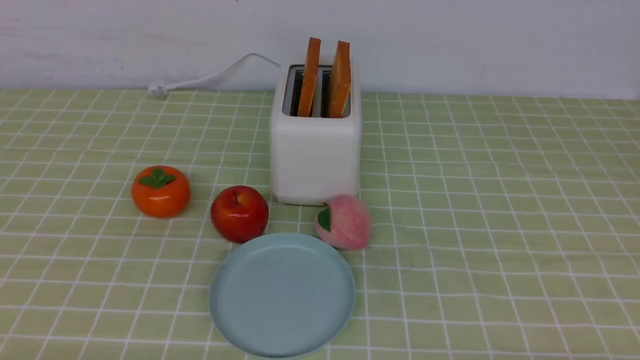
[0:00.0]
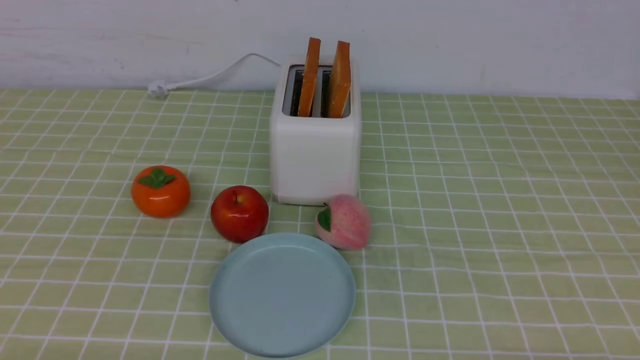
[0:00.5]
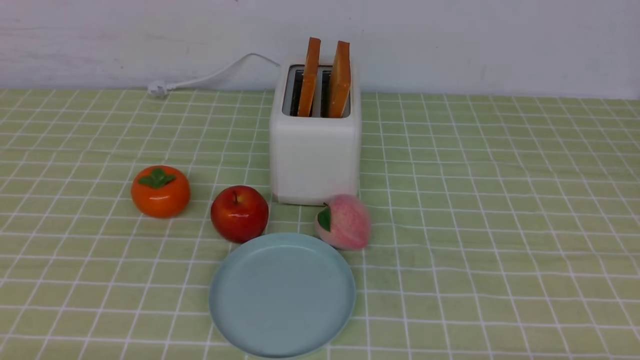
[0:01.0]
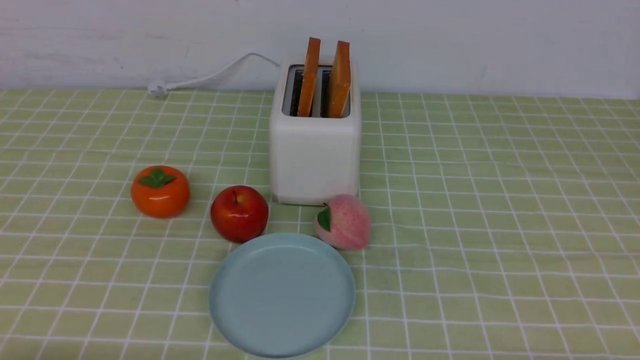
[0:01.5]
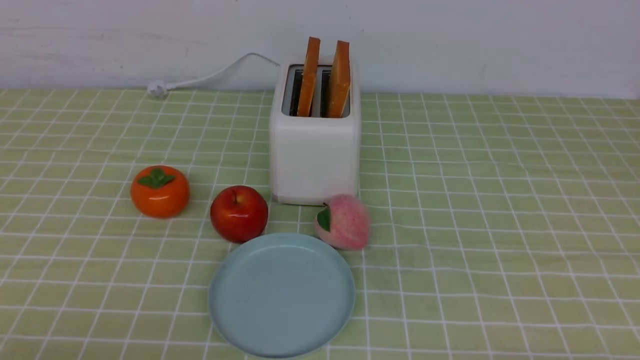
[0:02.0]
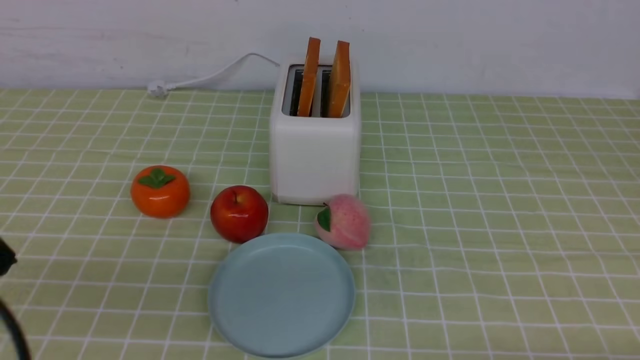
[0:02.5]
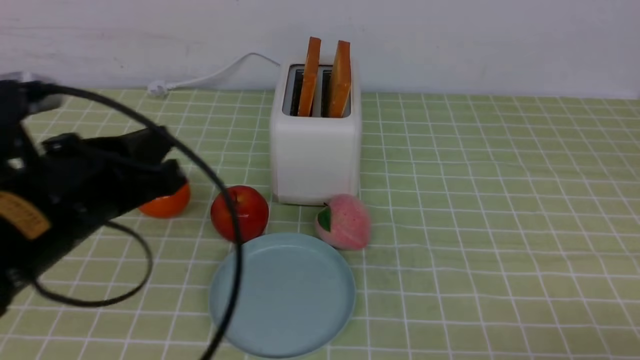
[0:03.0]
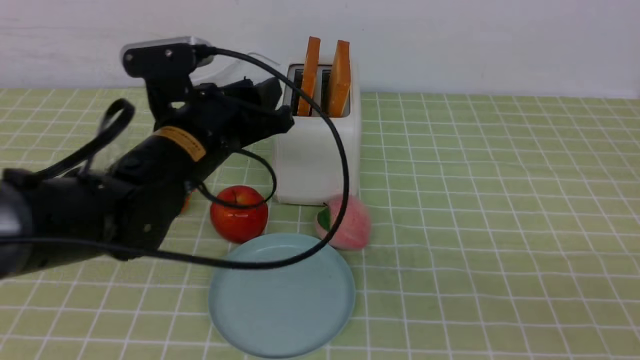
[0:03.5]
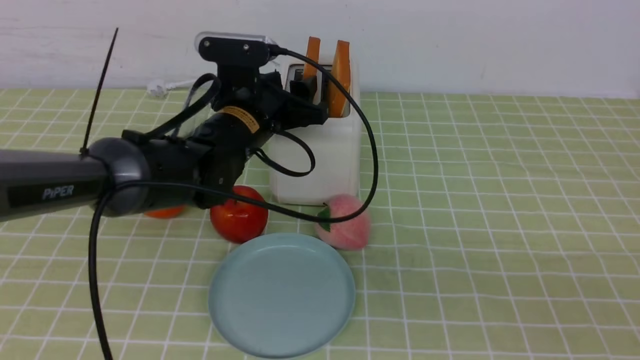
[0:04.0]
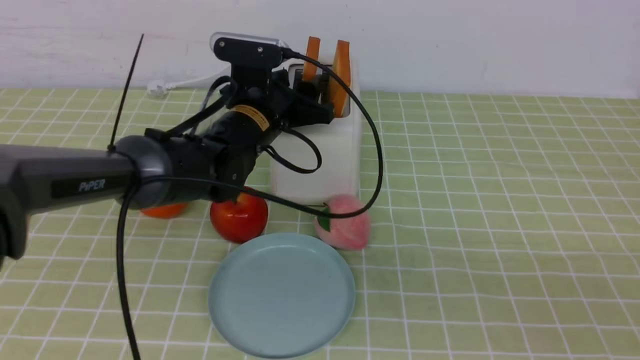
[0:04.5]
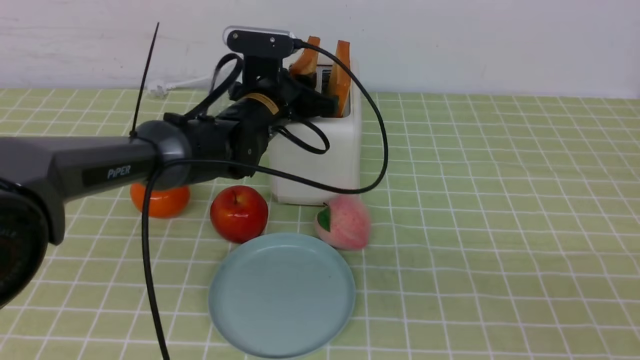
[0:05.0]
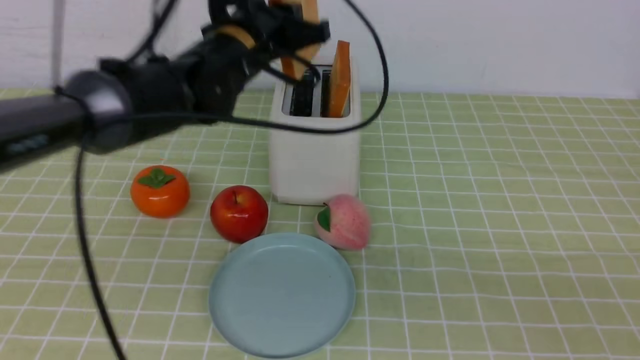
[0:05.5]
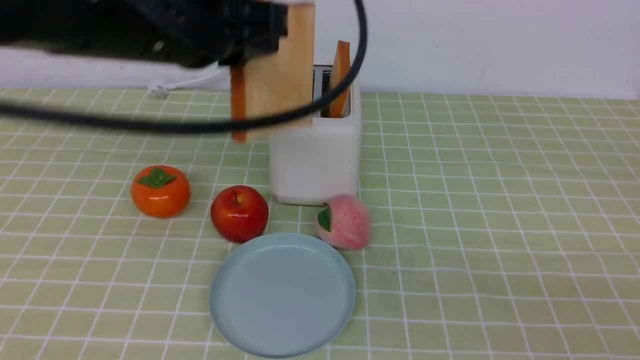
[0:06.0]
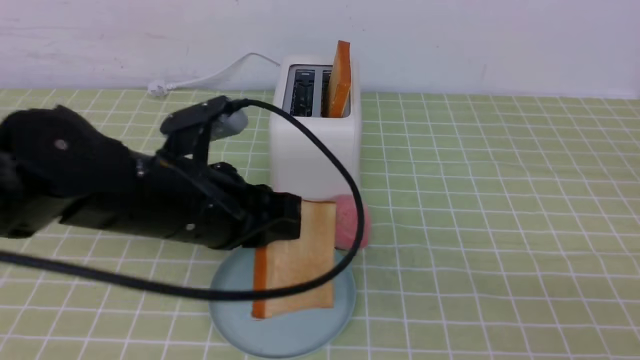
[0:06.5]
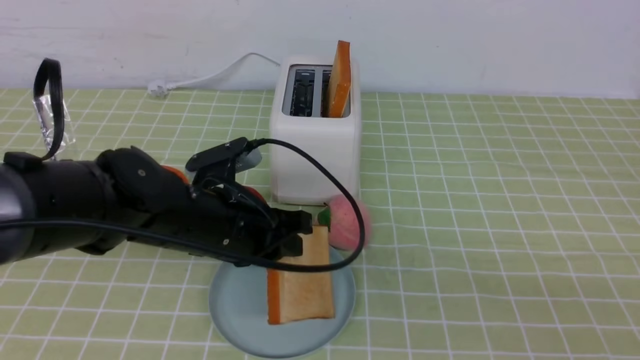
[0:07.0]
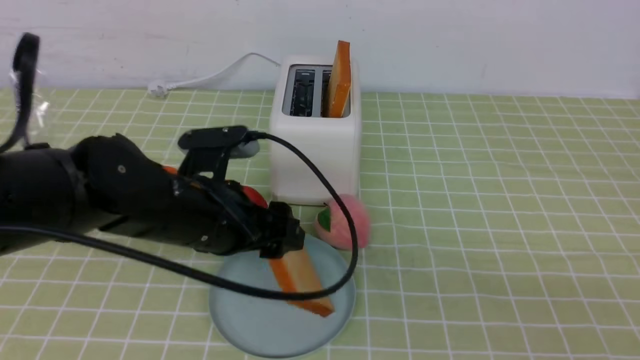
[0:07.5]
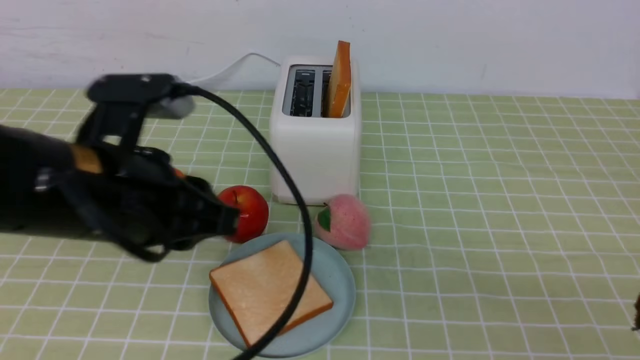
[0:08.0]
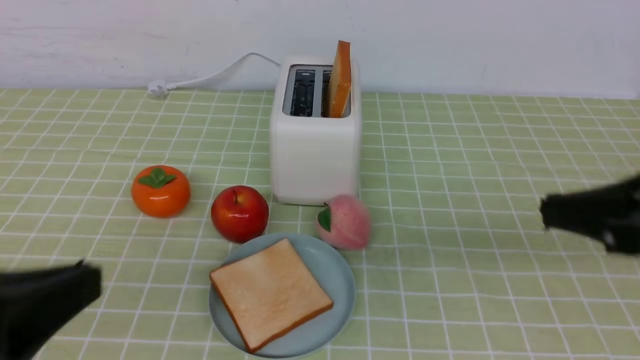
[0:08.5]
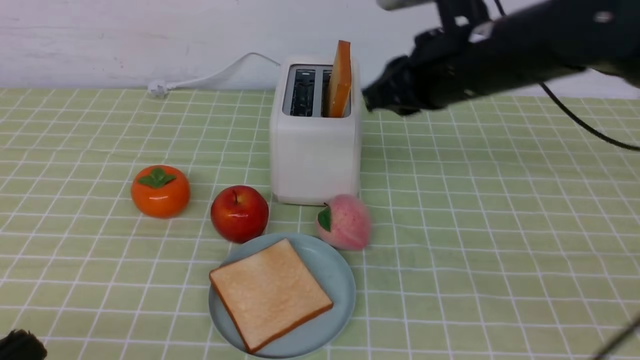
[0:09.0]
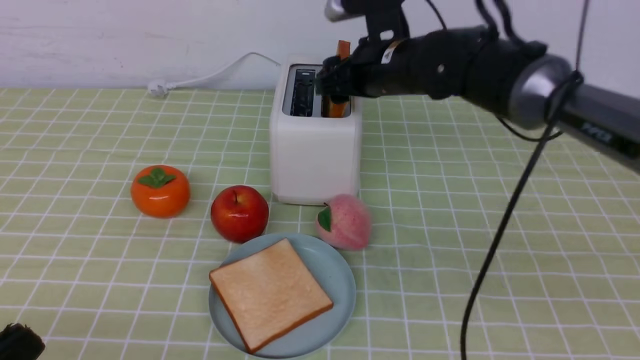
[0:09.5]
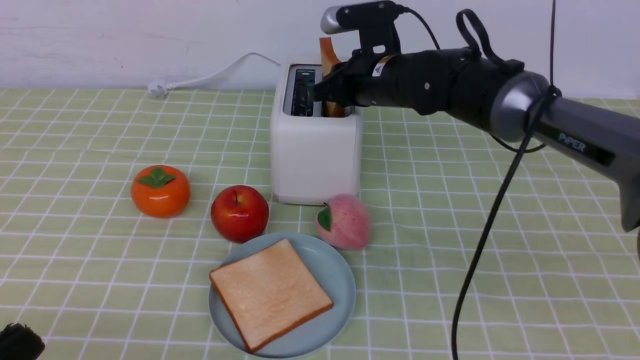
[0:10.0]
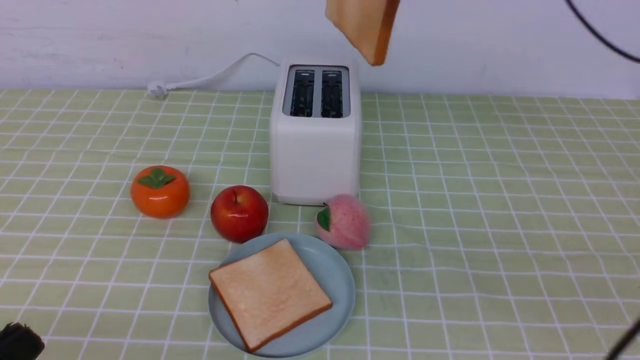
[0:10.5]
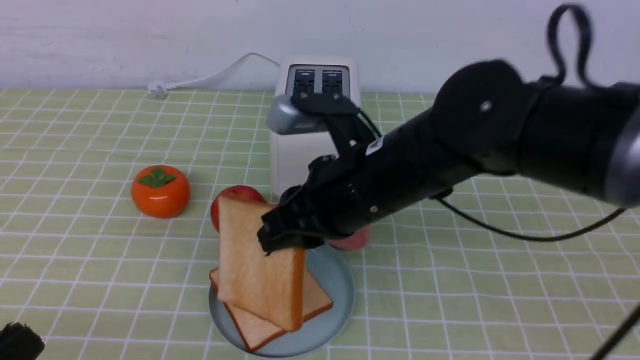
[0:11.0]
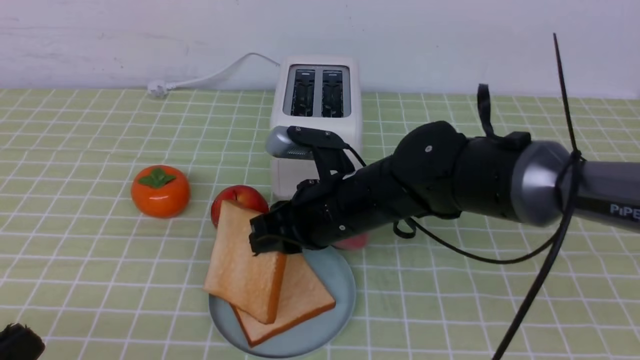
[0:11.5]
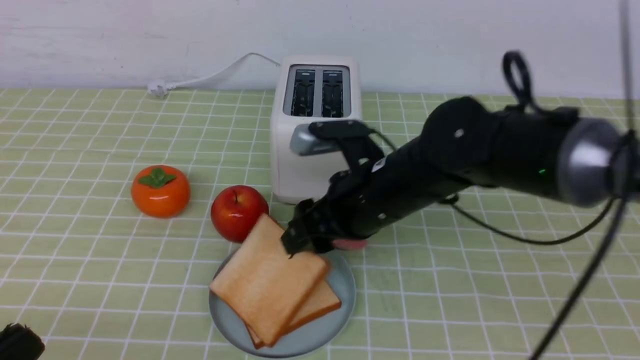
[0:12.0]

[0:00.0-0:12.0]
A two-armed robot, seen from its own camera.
Task of the whole recording: take toasted bread from bread machine on green coffee tablecloth place on plate.
Step, 0:00.0 to 0:05.5: use the left arm to take out a slice of bread.
Step, 0:06.0 to 0:08.0: use the left arm to put a slice of bread into the empty plate.
Step, 0:08.5 to 0:10.5: use the right arm to take out a slice of bread.
0:02.0 to 0:04.0: The left gripper heads forward and to the right, covering approximately 40 cm, and opens up. The right gripper goes approximately 15 cm upward, and closes up.
0:04.0 to 0:06.0: The left gripper heads upward and backward, covering some 20 cm, and closes.
0:06.0 to 0:08.0: The left gripper travels backward by roughly 5 cm, travels downward and back again, some 15 cm each way, and opens and closes again.
0:08.0 to 0:10.0: The left gripper shifts roughly 20 cm backward and to the left, and closes its fingers, while the right gripper moves forward and to the left, approximately 40 cm, and opens, then closes once more.
0:10.0 to 0:12.0: The right gripper goes up and down, roughly 20 cm each way, reversing 2 times, and opens its fingers.

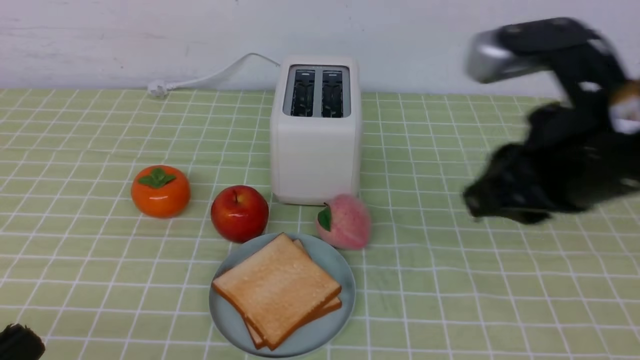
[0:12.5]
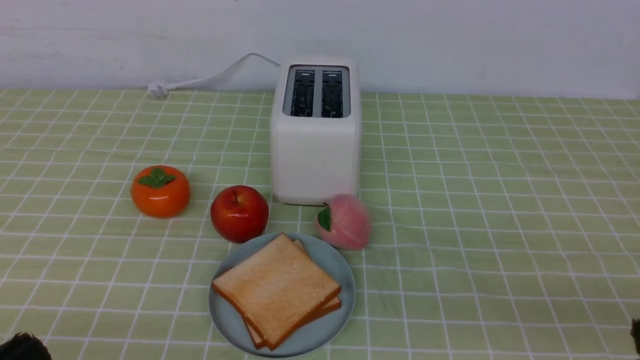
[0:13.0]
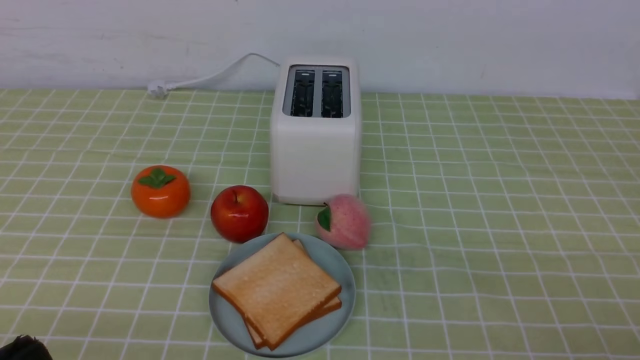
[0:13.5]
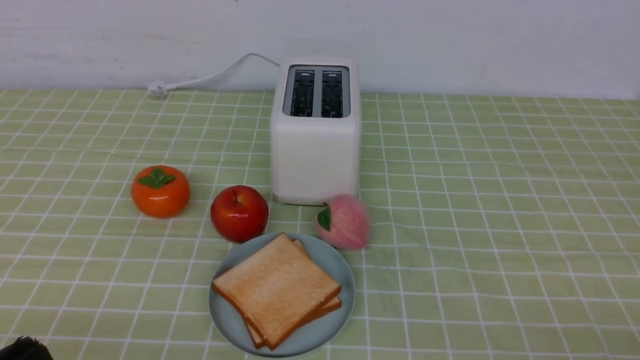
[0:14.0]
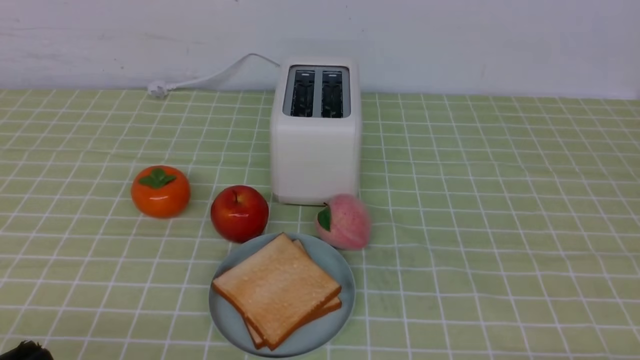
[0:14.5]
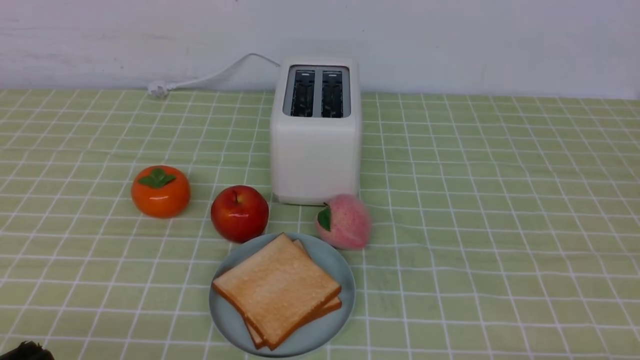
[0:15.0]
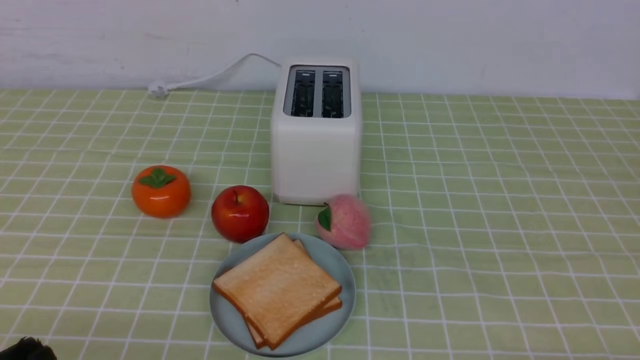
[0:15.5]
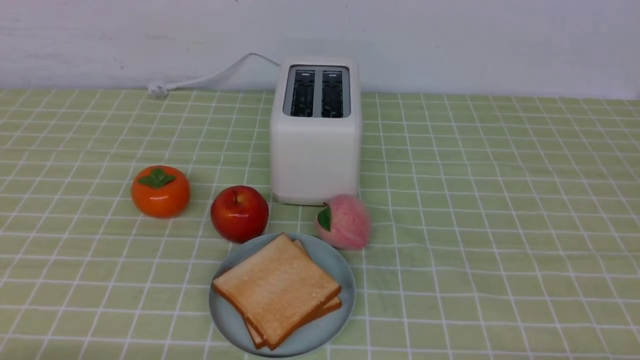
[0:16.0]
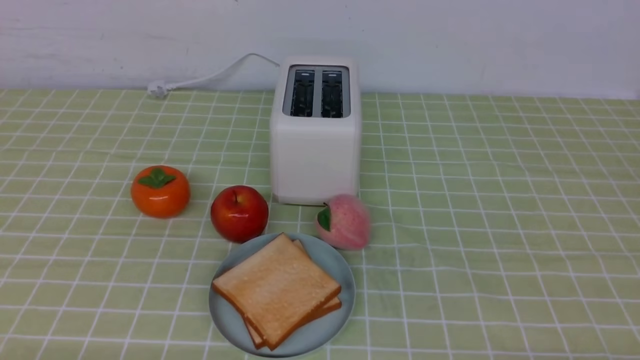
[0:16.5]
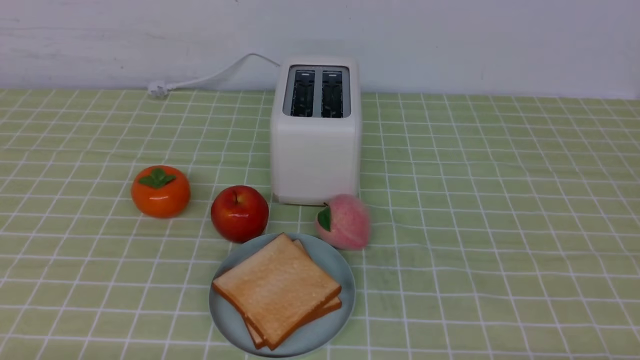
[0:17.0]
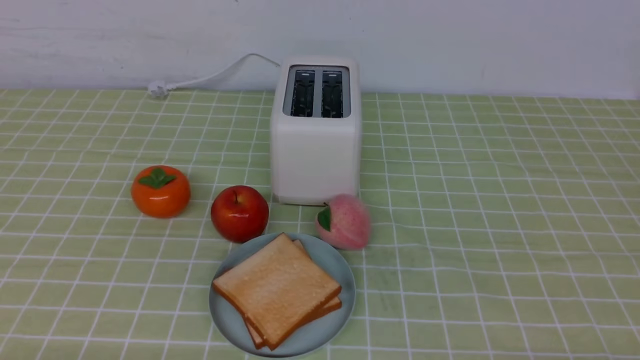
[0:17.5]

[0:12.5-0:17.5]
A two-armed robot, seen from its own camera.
Task of the whole recording: take toasted bread from bread machine on green coffee tablecloth place on plate.
0:12.5 to 0:15.0: The right gripper shifts some 30 cm downward, backward and to the right, and closes its fingers.

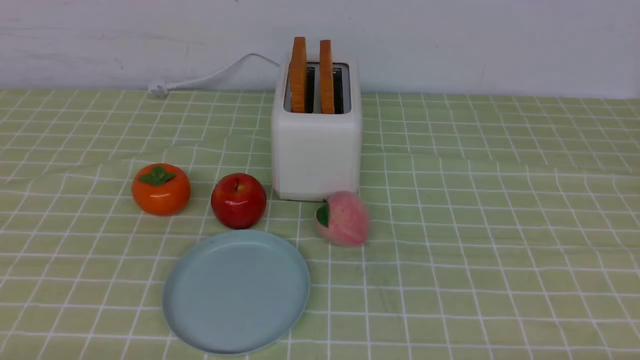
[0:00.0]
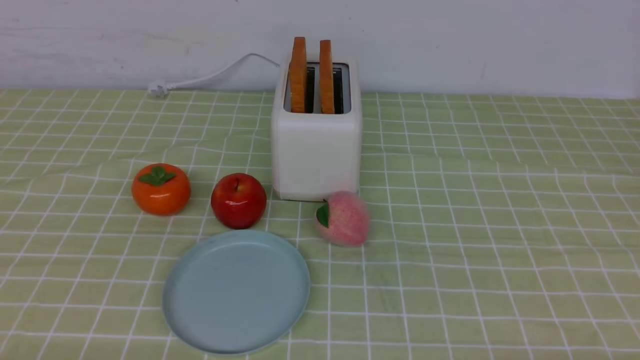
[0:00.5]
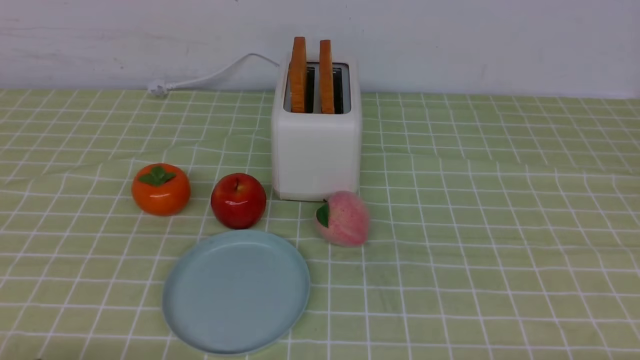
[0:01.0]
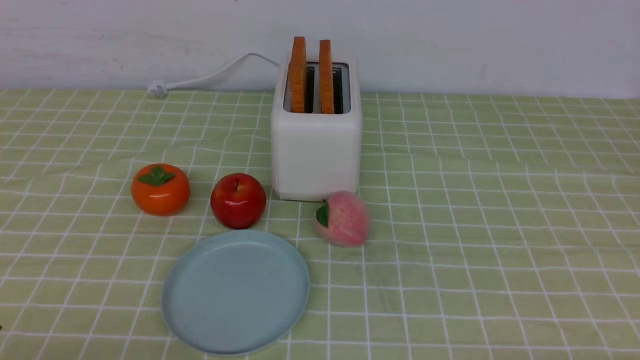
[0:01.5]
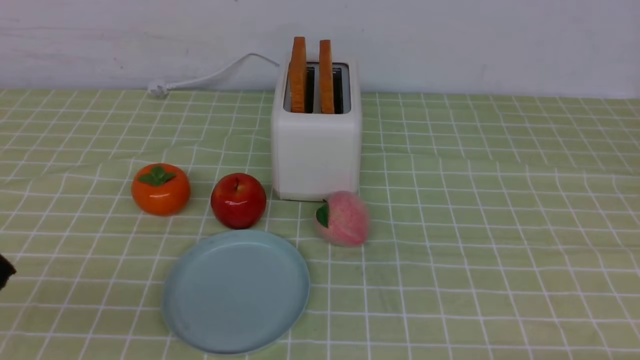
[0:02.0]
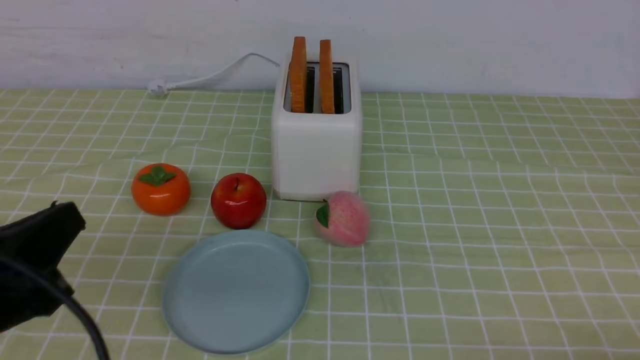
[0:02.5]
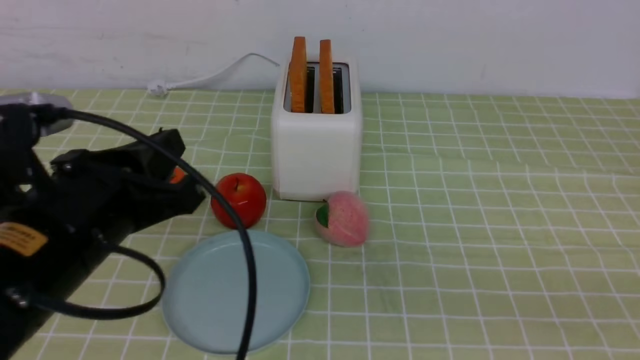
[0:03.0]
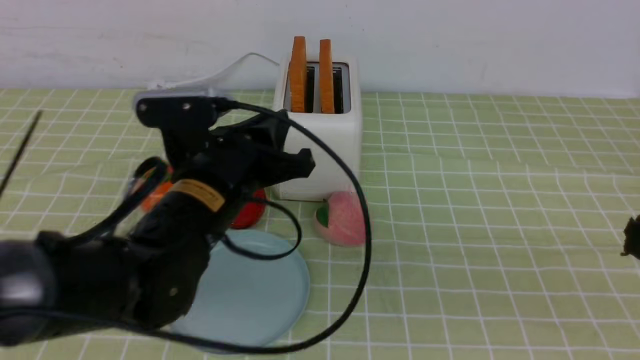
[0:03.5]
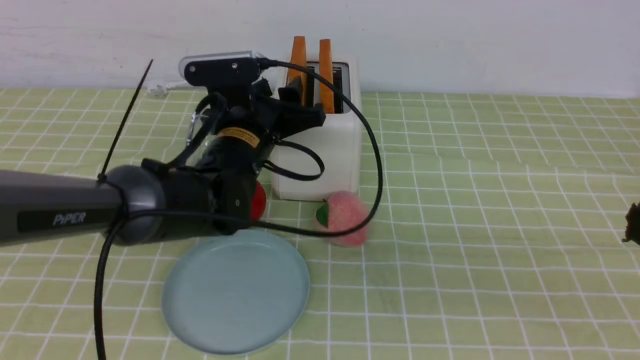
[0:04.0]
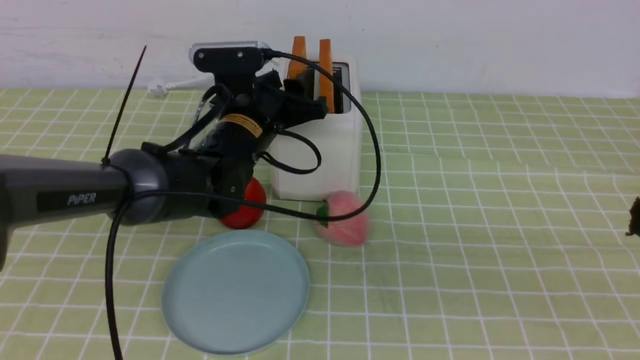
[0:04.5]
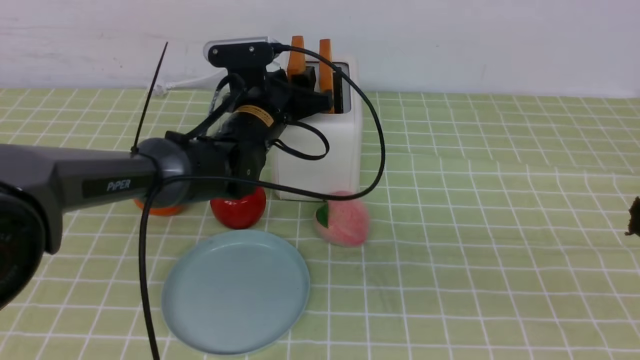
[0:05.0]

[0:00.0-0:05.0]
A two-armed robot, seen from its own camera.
Task of the whole recording: take toasted bread from bread machine on green coffee tablecloth place on plate.
0:00.0 to 0:02.5: The left gripper goes about 15 cm upward and forward, and closes its fingers.
0:02.5 to 0:05.0: The right gripper shifts approximately 15 cm upward, and closes up. The left gripper moves forward and to the right, approximately 35 cm, and opens up.
